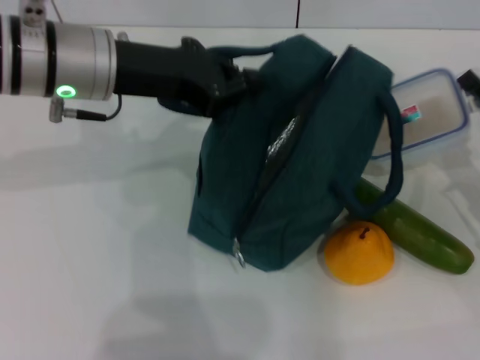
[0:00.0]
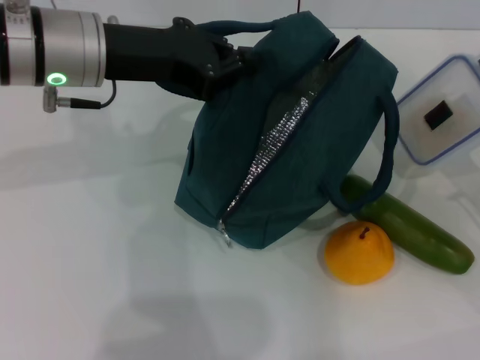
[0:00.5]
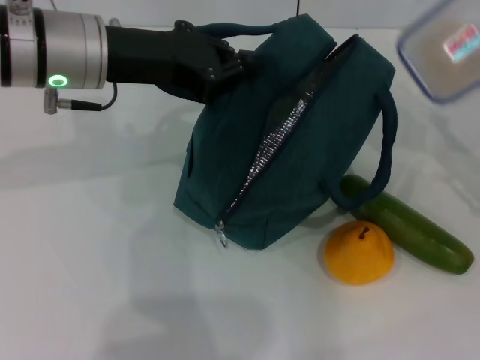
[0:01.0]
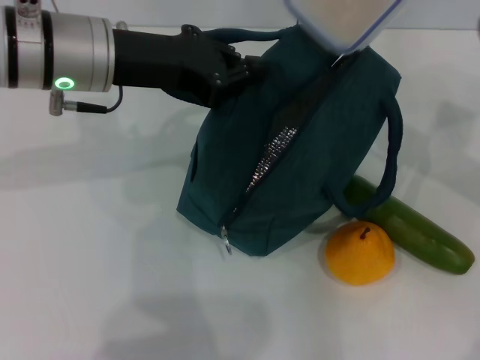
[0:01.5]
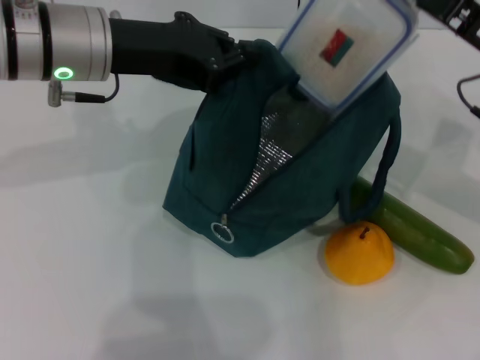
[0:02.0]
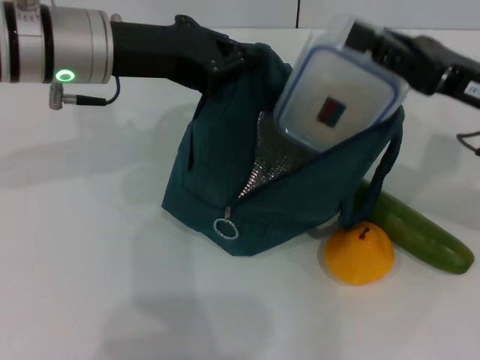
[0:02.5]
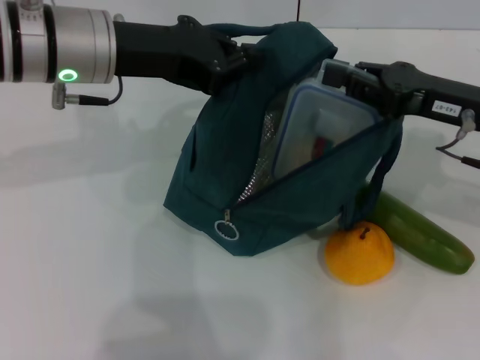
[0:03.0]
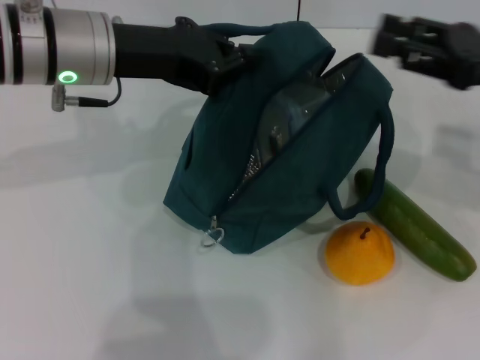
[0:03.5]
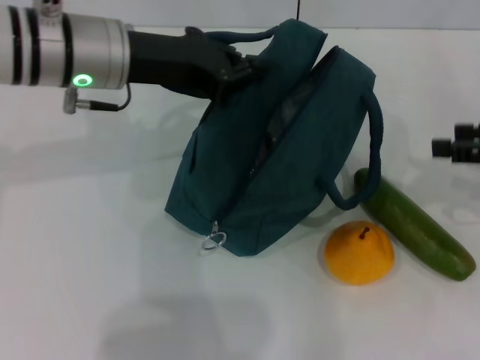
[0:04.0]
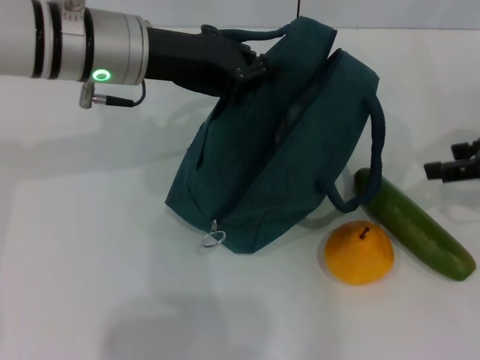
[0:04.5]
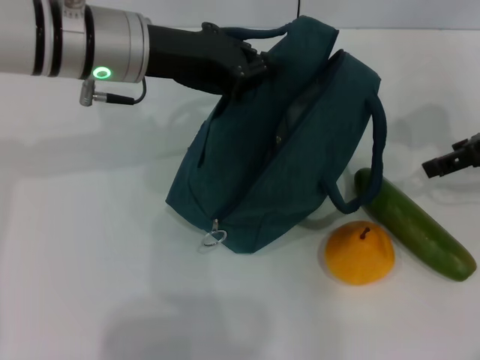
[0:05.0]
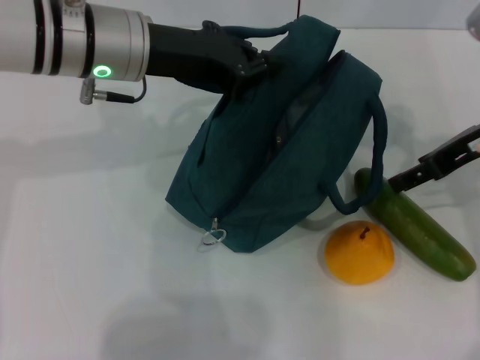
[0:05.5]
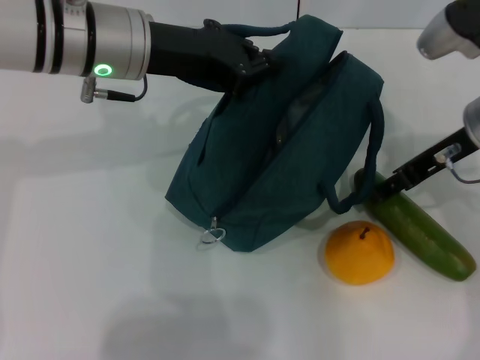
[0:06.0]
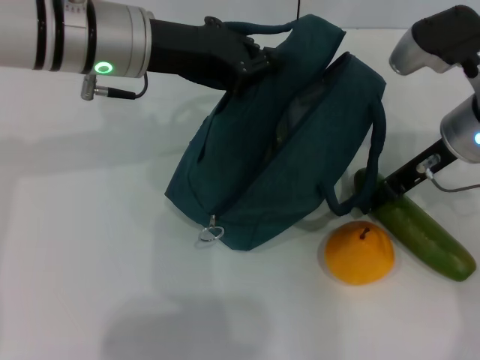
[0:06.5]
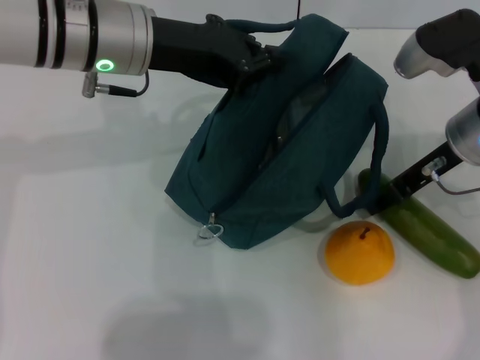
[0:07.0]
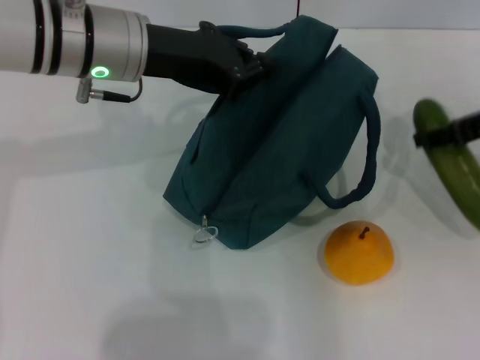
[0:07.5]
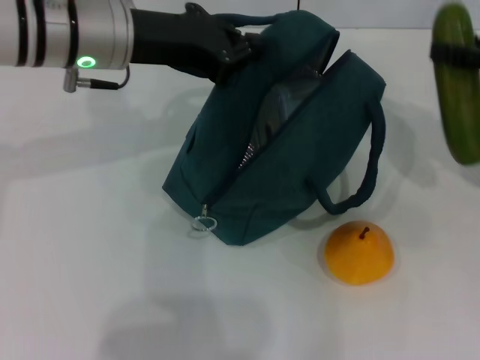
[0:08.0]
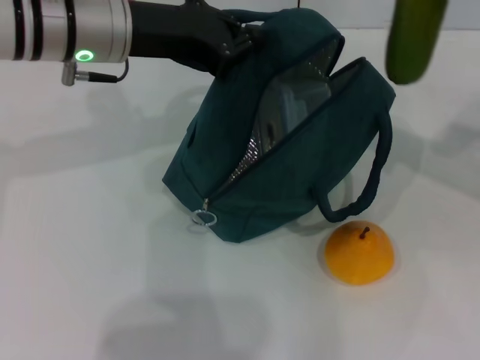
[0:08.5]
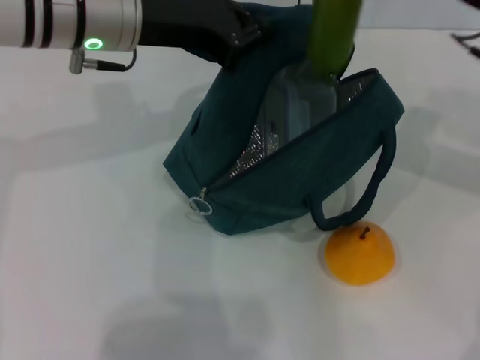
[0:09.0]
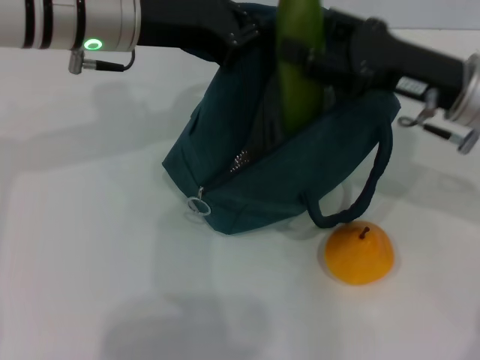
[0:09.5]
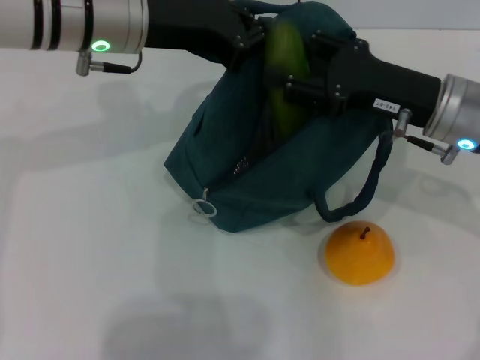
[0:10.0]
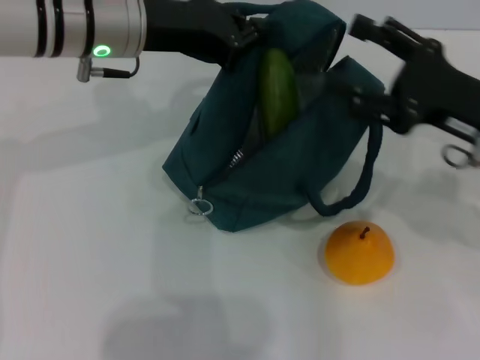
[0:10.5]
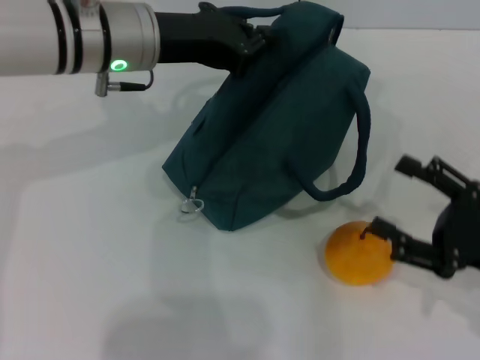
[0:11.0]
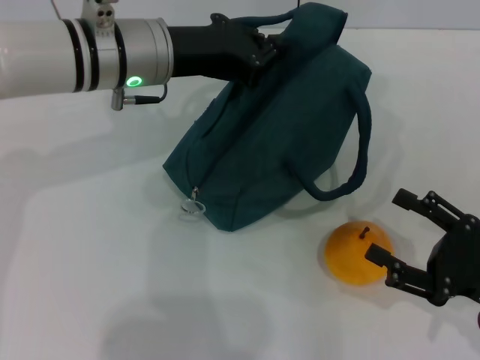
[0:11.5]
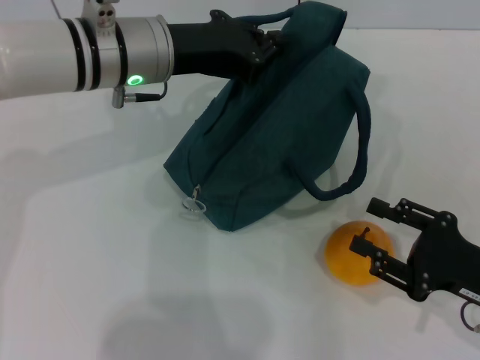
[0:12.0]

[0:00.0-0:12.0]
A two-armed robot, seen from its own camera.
Step, 0:00.0 to 0:03.0: Place the lunch box into the lunch bag with your right hand.
Step, 0:03.5 to 0:06.5: Pick up the cucumber with your right hand.
Step, 0:07.0 to 0:10.5: Put the cucumber into the lunch bag with your right hand.
0:00.0 to 0:02.0: The right gripper heads upward and to the left, covering approximately 15 cm.
0:02.0 to 0:04.0: The right gripper shifts roughly 10 cm to the right, and opens its fingers.
0:04.0 to 0:06.0: The right gripper travels to the left and forward by about 15 cm.
0:06.0 to 0:08.0: The right gripper moves to the right, roughly 10 cm.
0:08.0 to 0:10.0: The right gripper shifts about 15 cm to the left and downward.
0:10.0 to 0:12.0: The right gripper goes roughly 20 cm backward, downward and to the right.

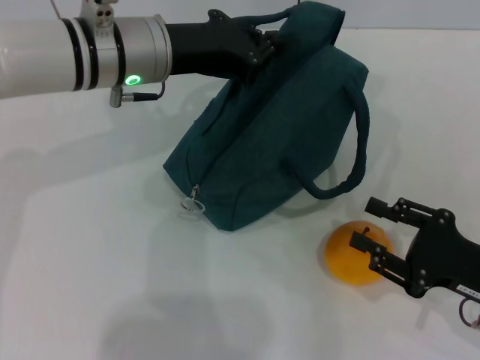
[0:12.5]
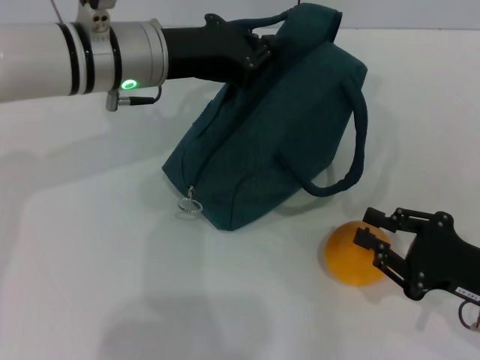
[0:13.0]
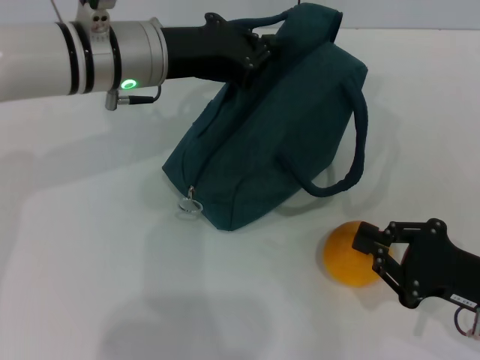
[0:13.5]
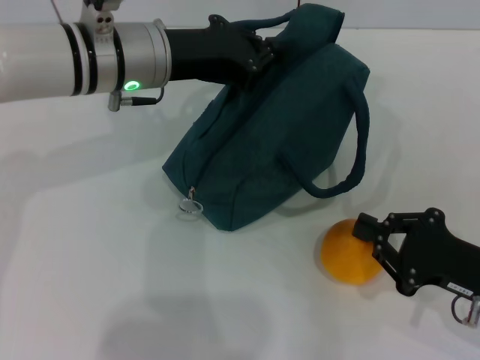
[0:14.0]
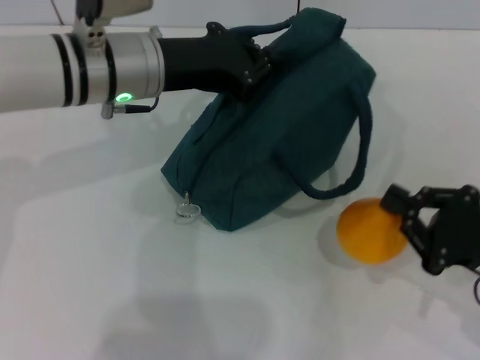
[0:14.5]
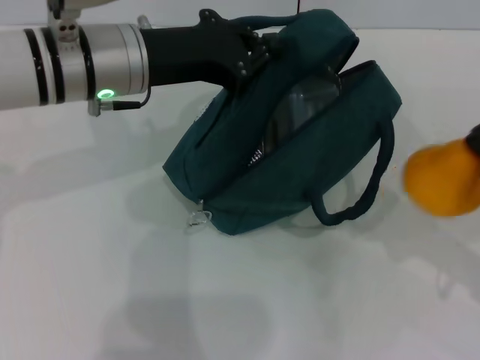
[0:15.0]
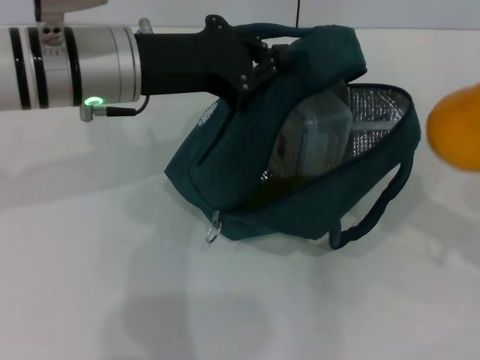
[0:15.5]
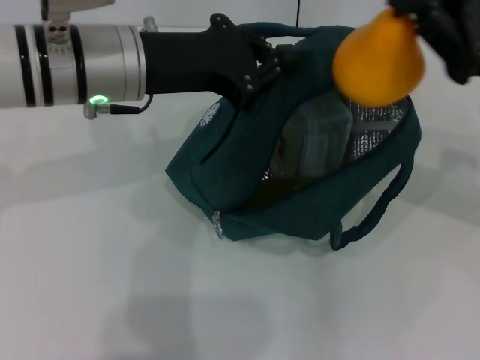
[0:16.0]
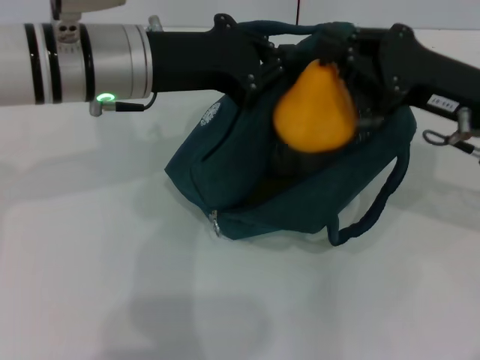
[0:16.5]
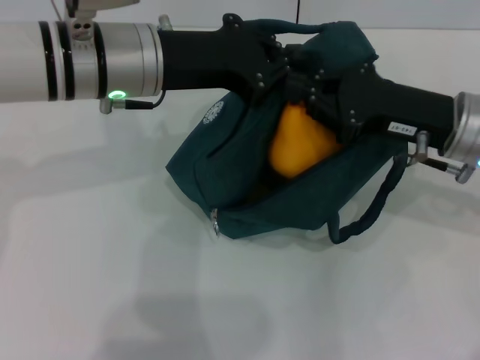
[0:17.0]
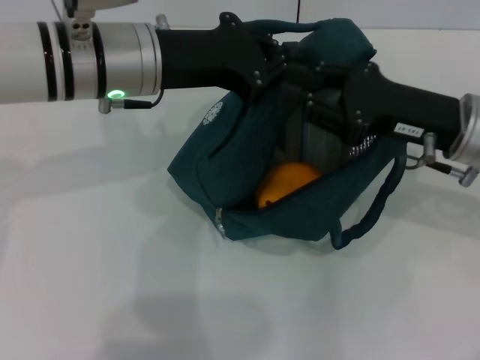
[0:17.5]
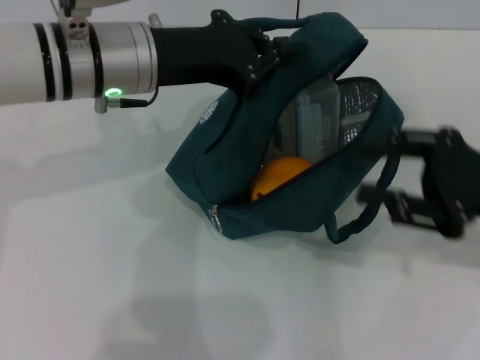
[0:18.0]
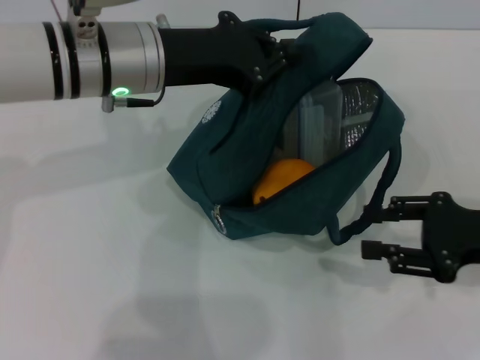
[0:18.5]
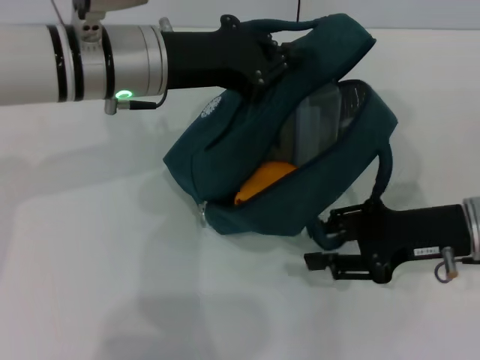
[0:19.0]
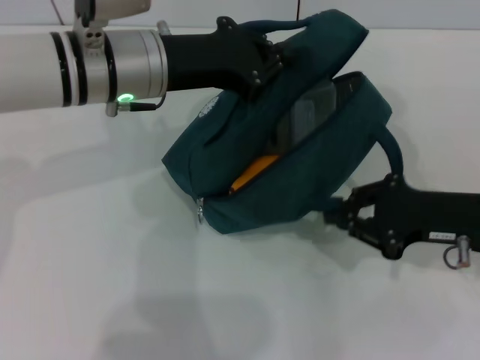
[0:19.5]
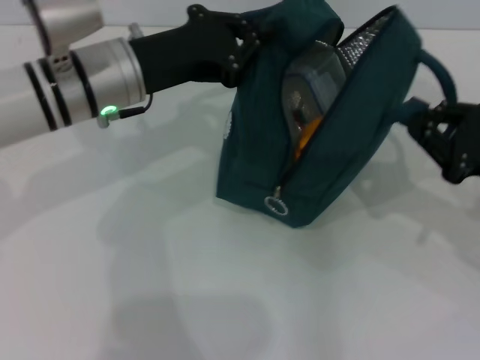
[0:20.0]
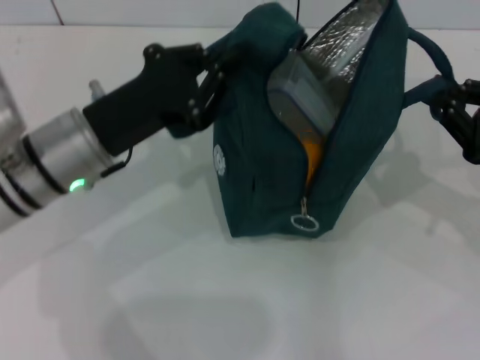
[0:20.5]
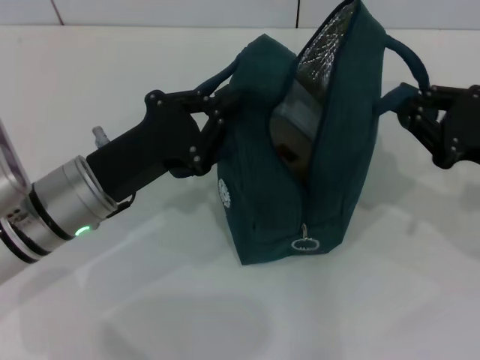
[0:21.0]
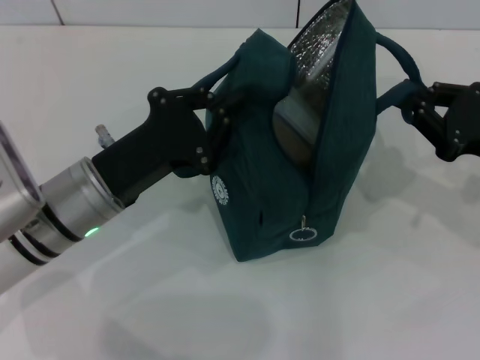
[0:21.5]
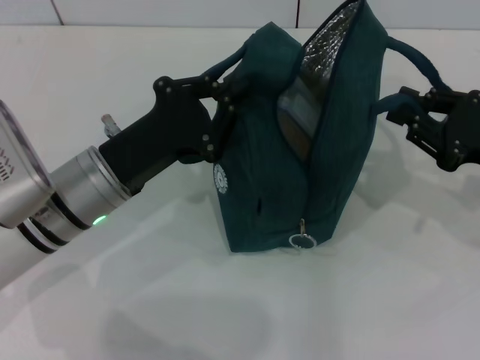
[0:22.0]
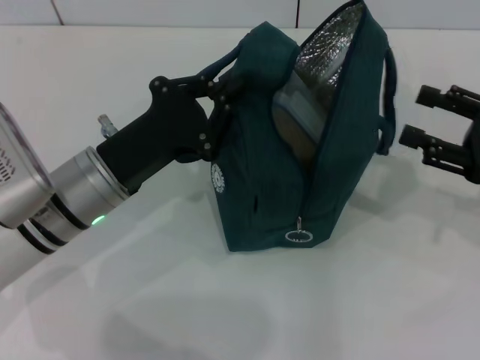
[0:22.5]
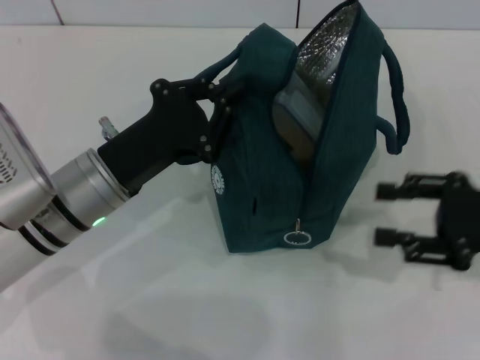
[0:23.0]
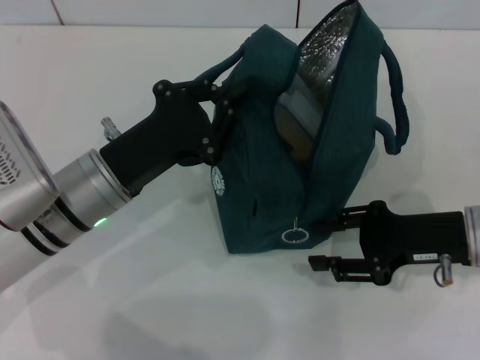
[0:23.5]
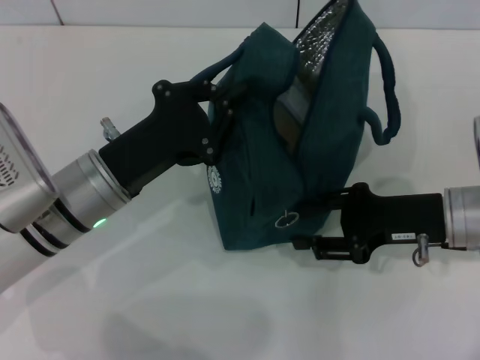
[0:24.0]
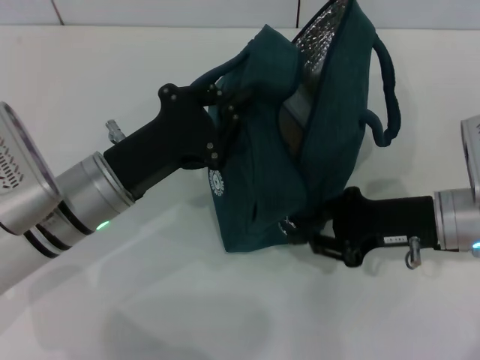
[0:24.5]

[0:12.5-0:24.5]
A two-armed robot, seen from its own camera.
Step, 0:14.0 to 0:17.5: Secure the lunch bag with your left hand.
Step, 0:18.0 to 0:22.0: Hold the lunch bag with your right hand.
0:12.5 to 0:14.5: The right gripper closes.
0:14.5 to 0:16.5: The right gripper travels forward, upward and to the left by about 15 cm.
0:16.5 to 0:18.5: The right gripper moves to the right, backward and downward, approximately 10 cm, and opens up.
0:18.5 to 0:20.5: The right gripper goes to the left and returns, some 5 cm each way, and closes its fingers. The left gripper travels downward, backward and to the left by some 10 cm.
0:20.5 to 0:22.5: The right gripper opens its fingers.
0:22.5 to 0:24.5: The right gripper goes about 10 cm to the left.

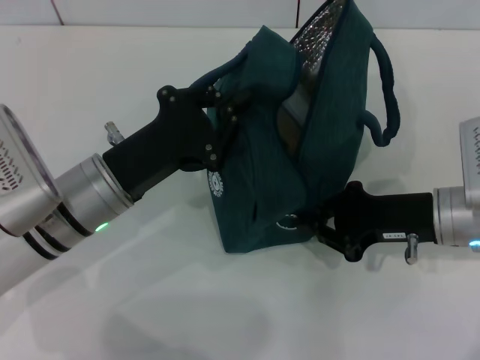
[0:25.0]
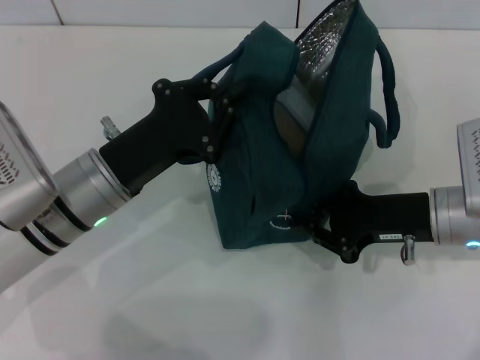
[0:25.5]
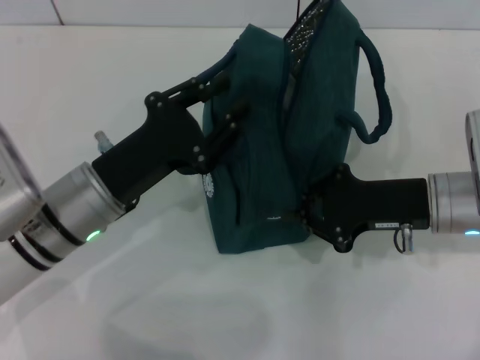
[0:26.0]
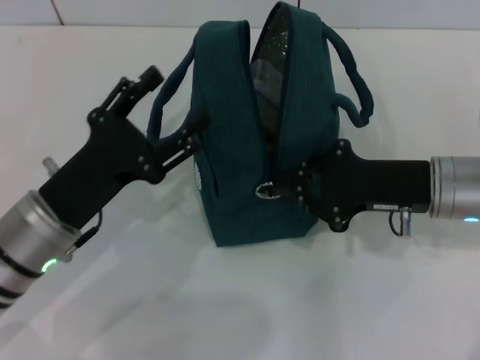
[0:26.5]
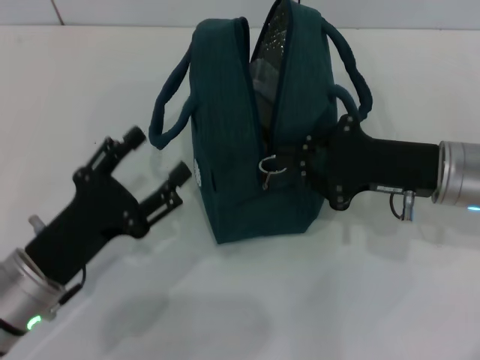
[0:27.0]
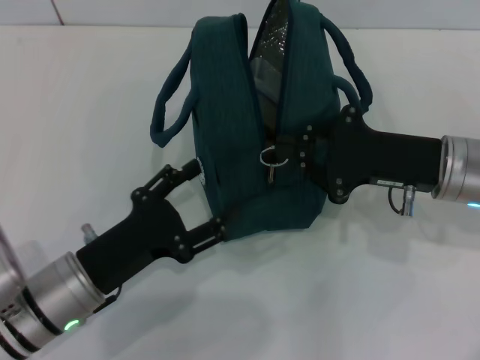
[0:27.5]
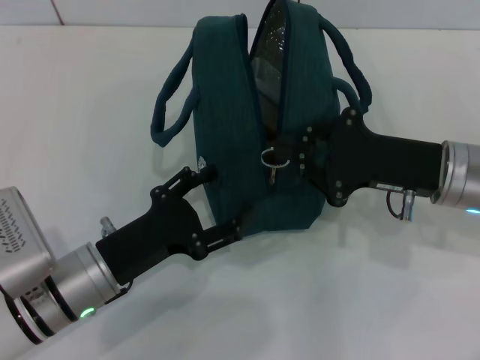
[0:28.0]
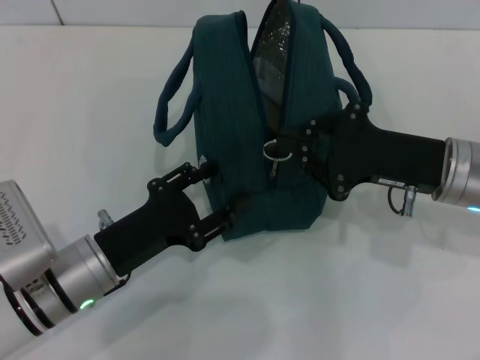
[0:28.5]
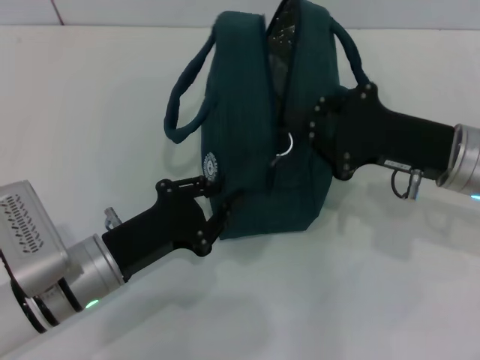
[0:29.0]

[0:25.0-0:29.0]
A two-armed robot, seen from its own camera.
0:25.0 to 0:27.0: The left gripper is displaced backward and to the left by approximately 10 cm, and opens its fingers.
0:27.0 to 0:29.0: The left gripper shifts by approximately 5 cm, and closes up.
